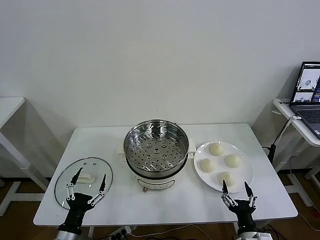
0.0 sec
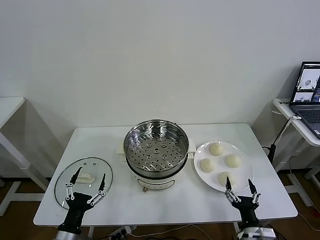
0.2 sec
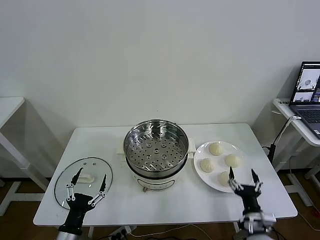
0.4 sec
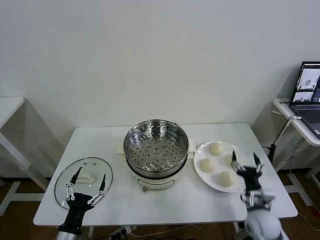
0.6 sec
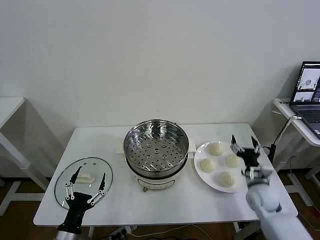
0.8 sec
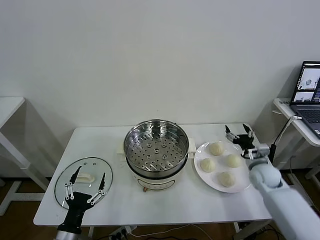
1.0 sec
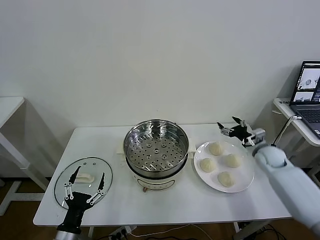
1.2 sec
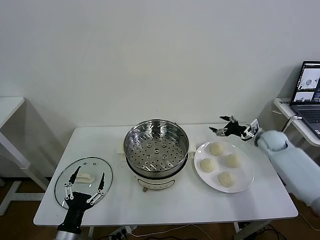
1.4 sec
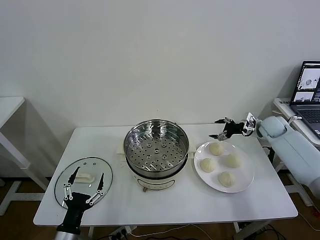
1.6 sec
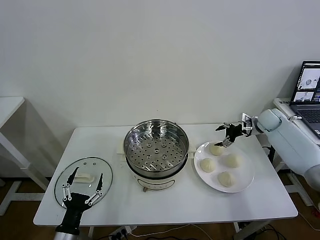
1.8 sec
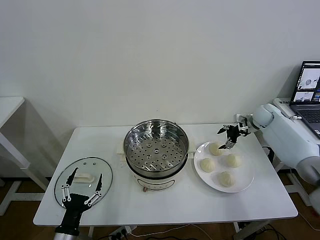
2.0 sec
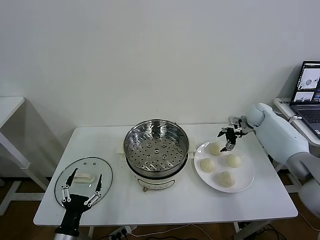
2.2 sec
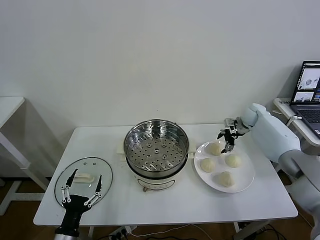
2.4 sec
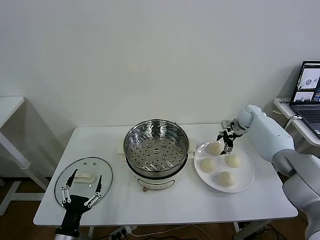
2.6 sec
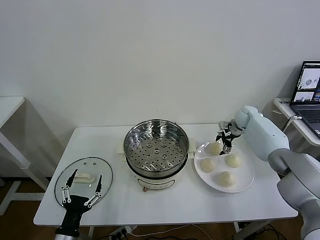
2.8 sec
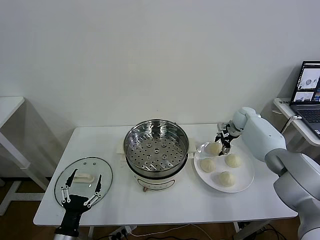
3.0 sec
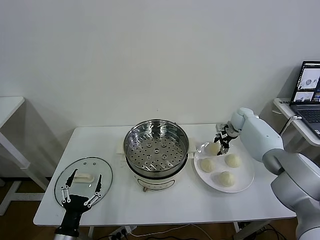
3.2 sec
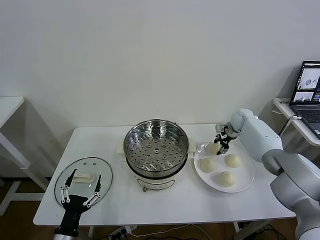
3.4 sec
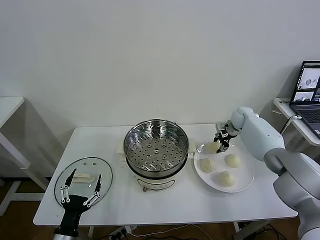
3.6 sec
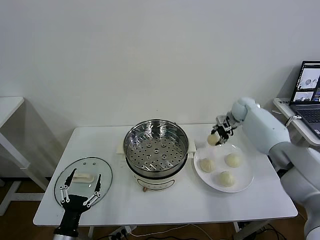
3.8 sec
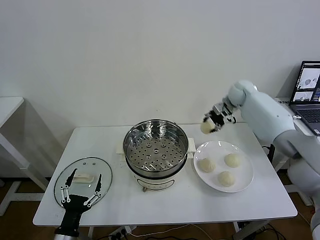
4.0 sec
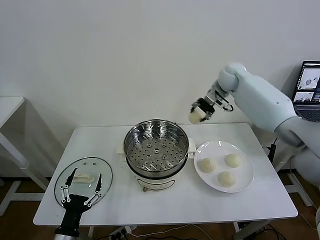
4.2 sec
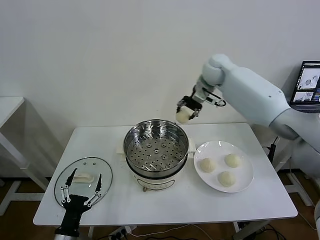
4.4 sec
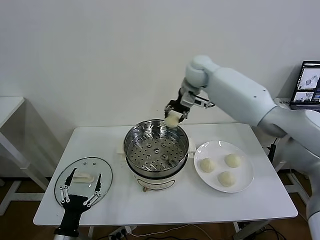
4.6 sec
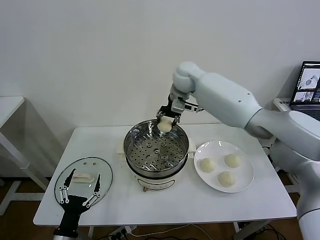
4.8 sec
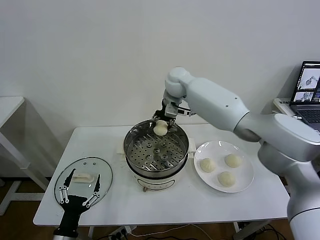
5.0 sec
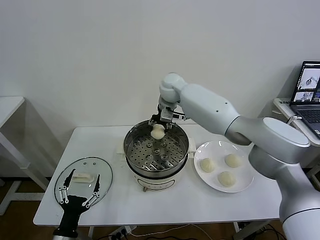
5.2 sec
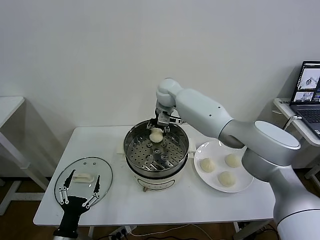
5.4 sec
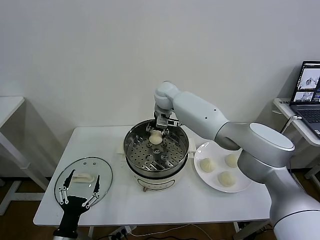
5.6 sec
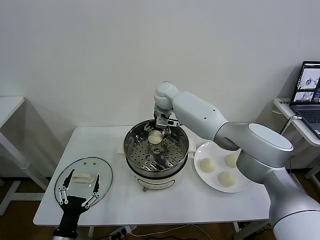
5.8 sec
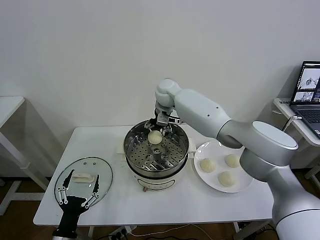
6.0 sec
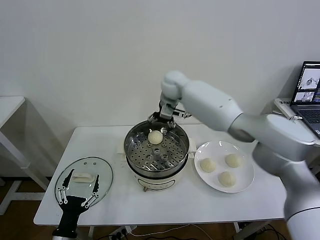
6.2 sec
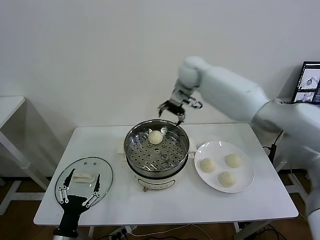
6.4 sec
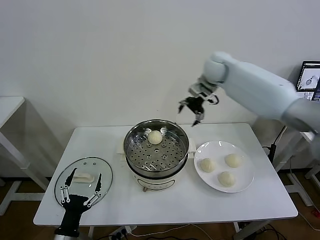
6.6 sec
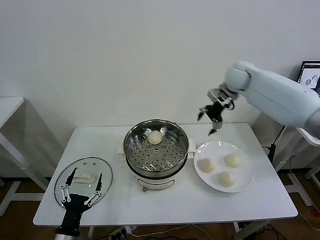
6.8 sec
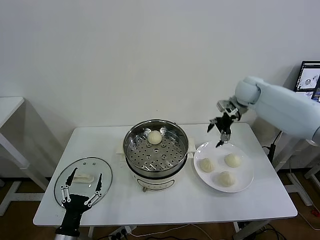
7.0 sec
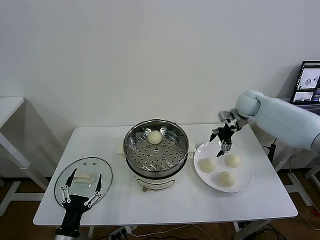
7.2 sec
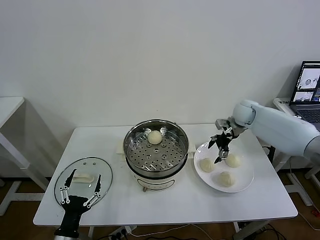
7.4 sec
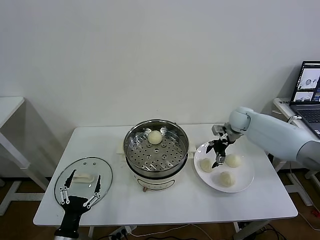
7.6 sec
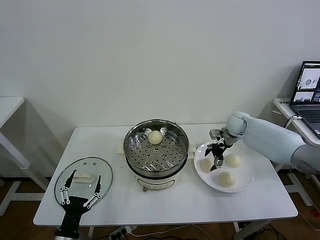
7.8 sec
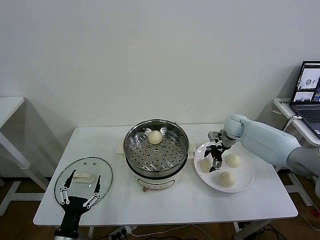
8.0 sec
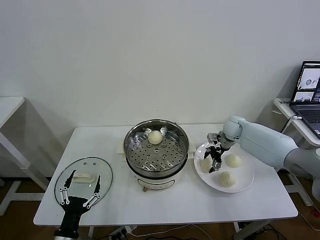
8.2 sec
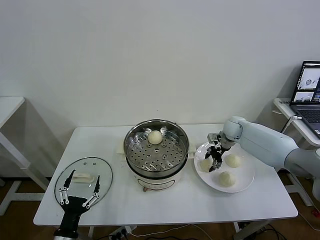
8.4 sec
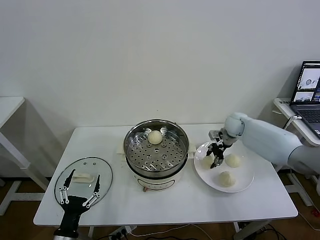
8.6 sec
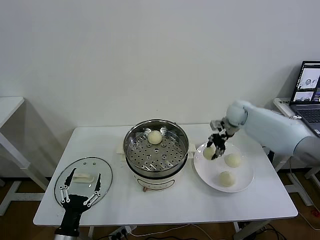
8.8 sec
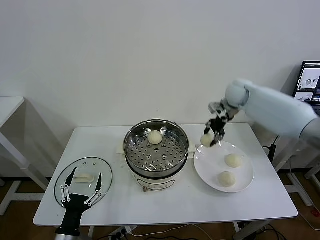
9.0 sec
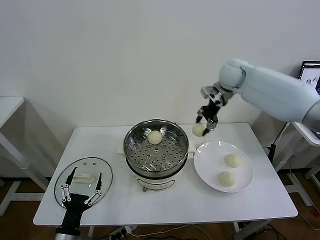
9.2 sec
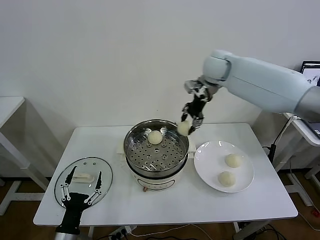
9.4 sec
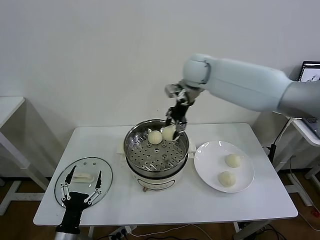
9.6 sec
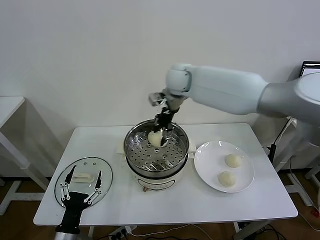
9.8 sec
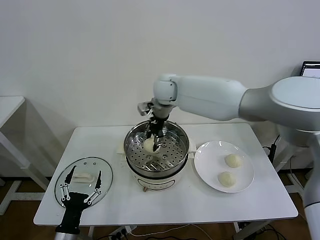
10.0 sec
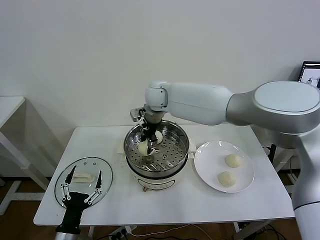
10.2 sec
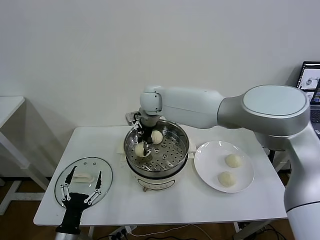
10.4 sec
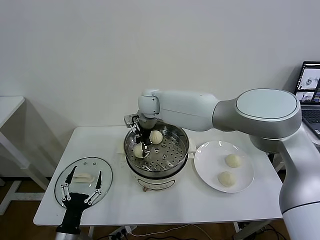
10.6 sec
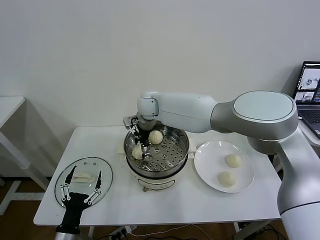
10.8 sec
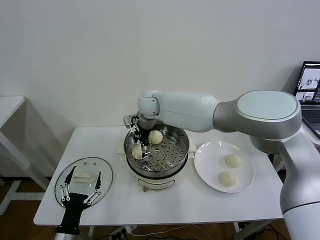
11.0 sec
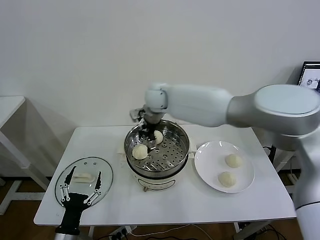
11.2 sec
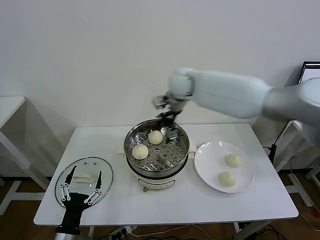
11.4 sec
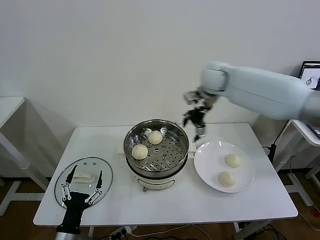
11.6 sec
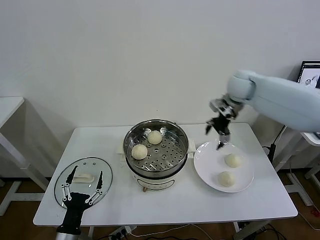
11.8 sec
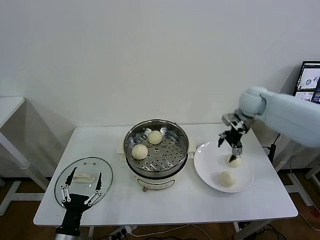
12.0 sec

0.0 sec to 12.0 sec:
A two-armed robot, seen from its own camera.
Task of the whole recording: take steamed baozi put them in steamer then cover it.
Step, 0.0 sec to 3.2 sec: Grasp the baozi in the plate with right gripper.
Step, 3.4 sec to 5.8 sec: Place the baozi on the steamer with right gripper.
Step, 6.0 sec to 8.2 sec: Grasp the baozi in the plate with right gripper.
Step, 8.6 sec to 10.8 sec: Place the baozi on the steamer with right gripper.
1.6 sec to 3.0 sec: The right gripper heads to the left and forward, covering approximately 10 cm.
3.0 sec to 4.4 sec: The right gripper travels upward and to the left by some 30 cm, and closes.
4.4 sec to 6.0 sec: The right gripper travels to the left and downward by roughly 15 cm, and opens.
6.0 sec to 7.6 sec: The right gripper moves to the right and downward, some 30 cm.
7.6 sec to 9.0 sec: The right gripper heads upward, covering about 15 cm, and closes its fingers.
9.0 sec to 10.4 sec: The right gripper heads to the left, covering about 30 cm.
10.4 sec to 12.0 sec: The right gripper heads to the right, covering some 35 cm, and opens its fingers.

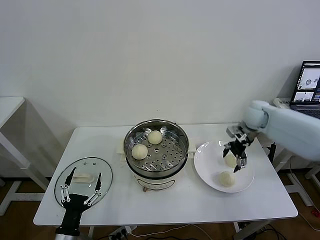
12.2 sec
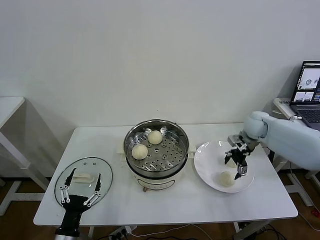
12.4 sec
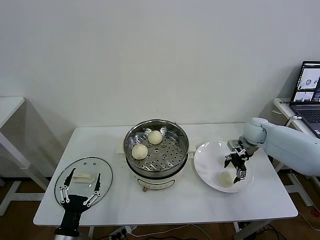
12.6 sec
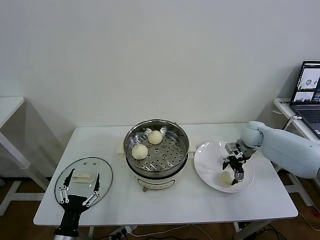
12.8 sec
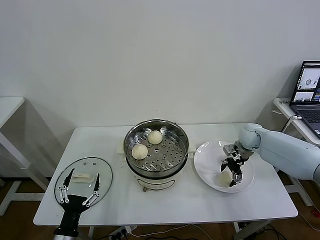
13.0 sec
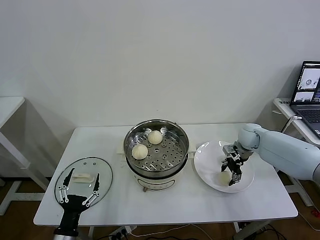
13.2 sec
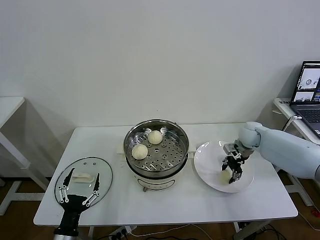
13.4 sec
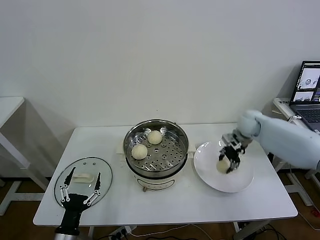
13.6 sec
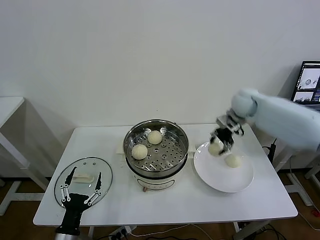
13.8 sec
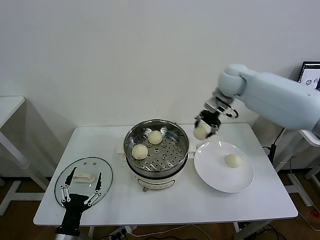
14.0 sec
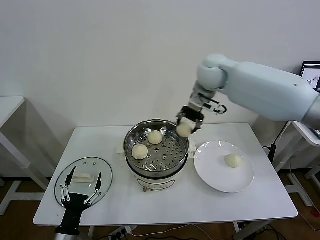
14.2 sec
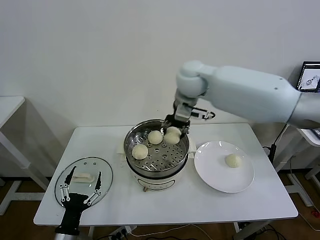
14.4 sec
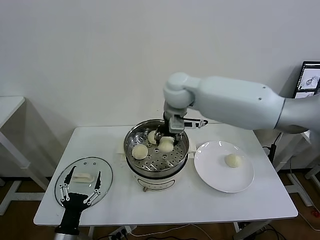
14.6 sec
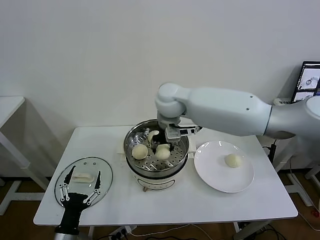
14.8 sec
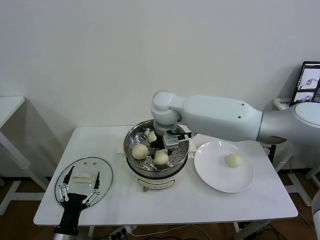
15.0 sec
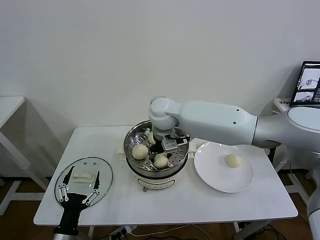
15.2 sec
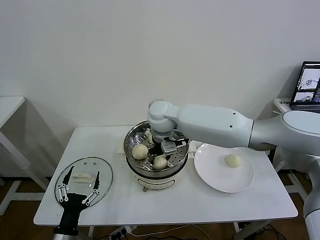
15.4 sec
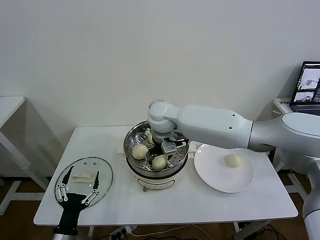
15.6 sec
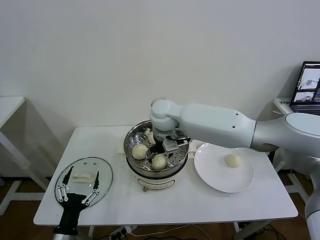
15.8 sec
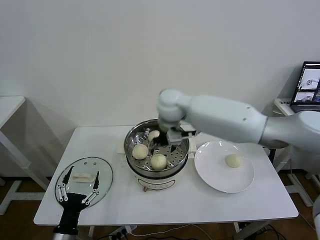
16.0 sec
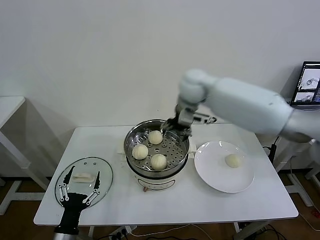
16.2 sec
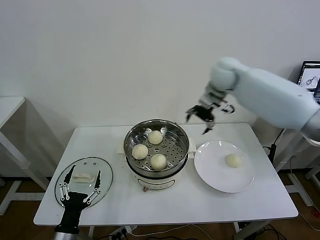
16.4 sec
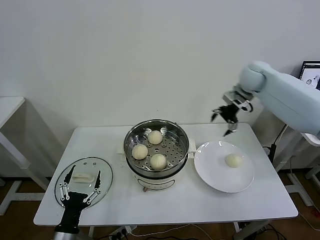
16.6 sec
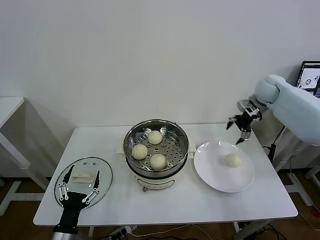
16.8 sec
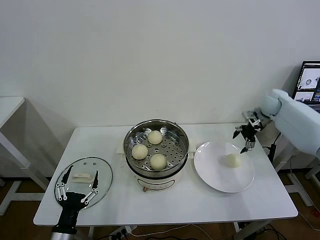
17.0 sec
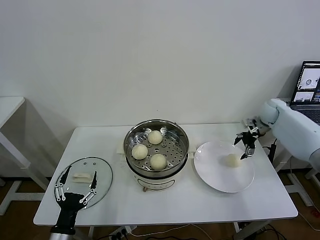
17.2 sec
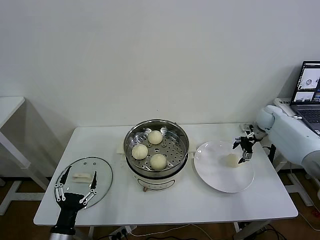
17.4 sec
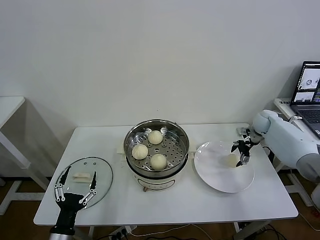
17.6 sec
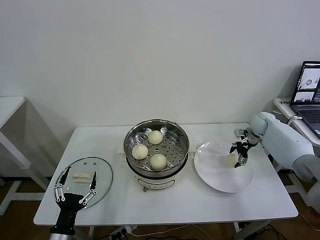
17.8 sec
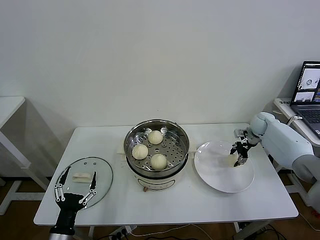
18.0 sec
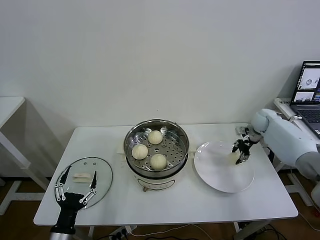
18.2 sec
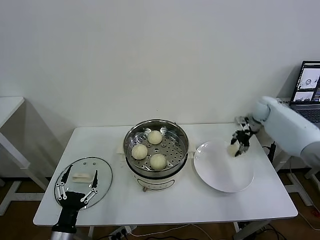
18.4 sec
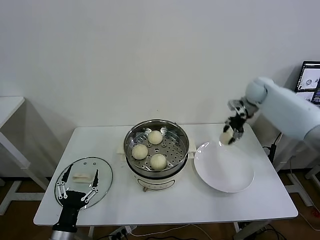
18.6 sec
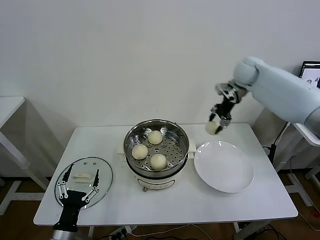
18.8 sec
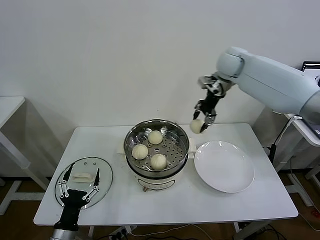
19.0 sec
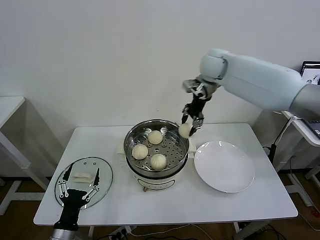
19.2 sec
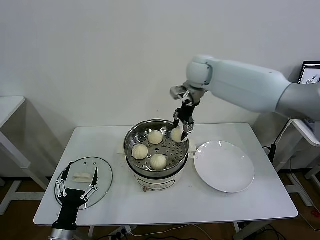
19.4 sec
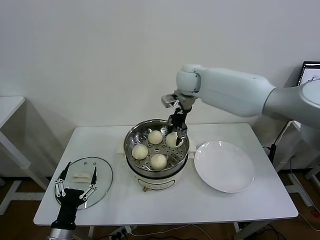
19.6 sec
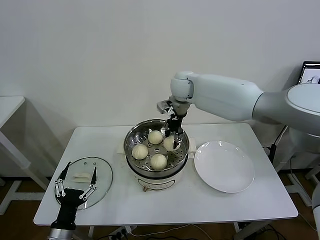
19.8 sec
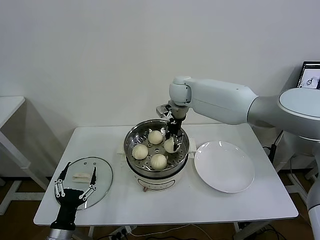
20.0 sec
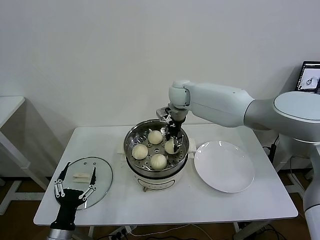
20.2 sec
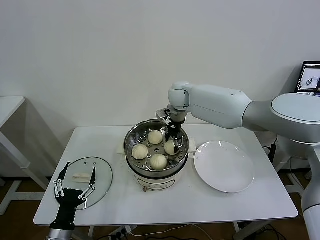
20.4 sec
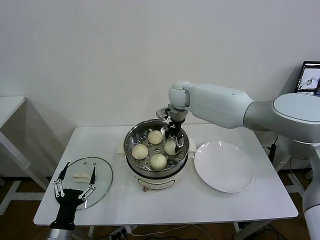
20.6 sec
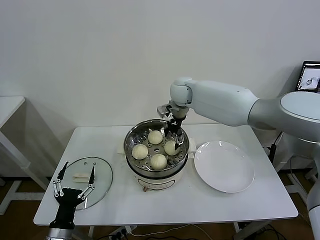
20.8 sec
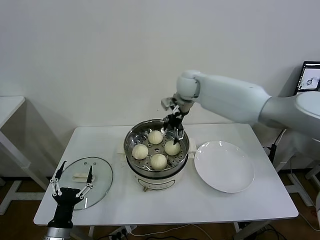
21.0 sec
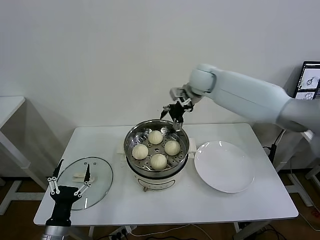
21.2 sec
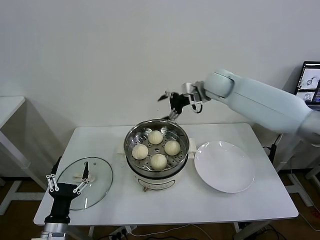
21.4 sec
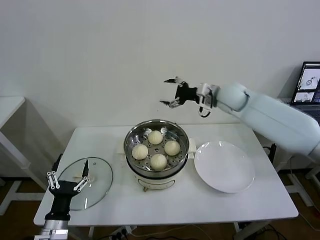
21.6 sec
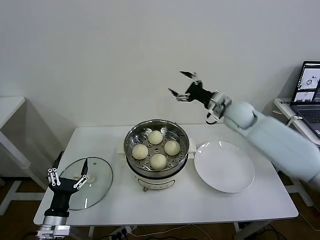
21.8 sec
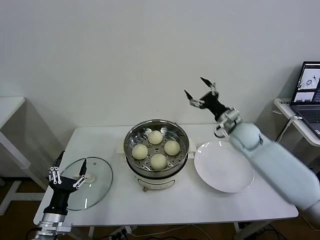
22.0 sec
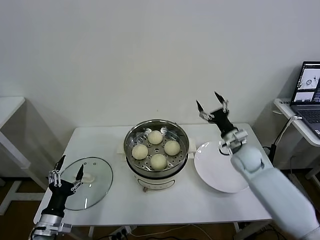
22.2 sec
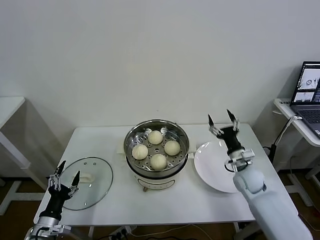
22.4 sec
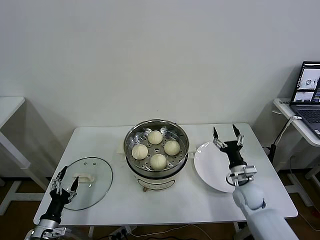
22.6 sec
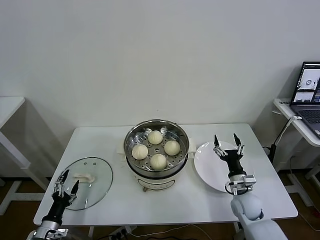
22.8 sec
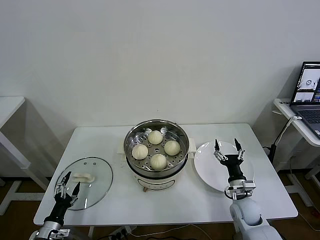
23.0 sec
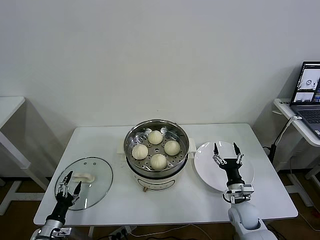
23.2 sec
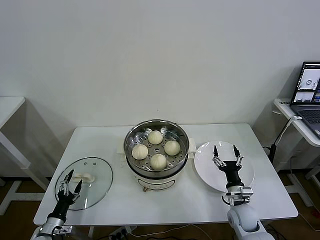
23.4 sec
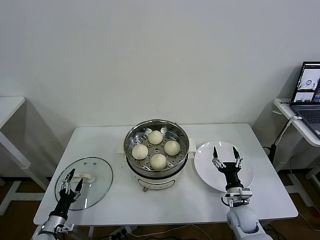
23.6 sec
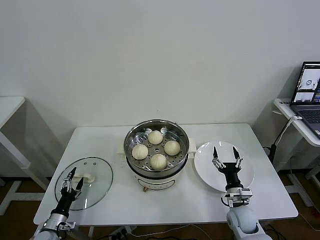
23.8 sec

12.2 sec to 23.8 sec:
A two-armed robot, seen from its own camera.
Task of the whole recording: take steamed baozi put them in steamer then cover it.
Step, 13.4 sec to 15.6 sec: Place the baozi on the steamer with right gripper.
Step, 16.0 sec to 18.0 sec: Grasp the baozi in the plate with right gripper.
Step, 18.2 sec to 20.6 sec: Place the baozi on the steamer with right gripper.
12.2 sec to 13.6 sec: The right gripper reaches some 10 cm downward, then returns, and closes its fingers.
13.6 sec to 15.0 sec: The right gripper shifts approximately 30 cm to the left.
15.0 sec to 16.6 sec: The right gripper travels to the right by about 30 cm, and opens its fingers.
16.6 sec to 18.0 sec: The right gripper shifts approximately 25 cm downward and to the right, and closes its fingers.
18.0 sec to 19.4 sec: The right gripper is displaced to the left and upward by some 40 cm, and closes up.
19.4 sec to 21.0 sec: The right gripper opens its fingers.
21.0 sec to 22.4 sec: The right gripper heads downward, to the right and backward, covering about 40 cm, while the left gripper shifts about 5 cm to the left.
22.4 sec to 23.8 sec: The right gripper goes about 15 cm backward and downward. The left gripper travels downward by some 10 cm.
